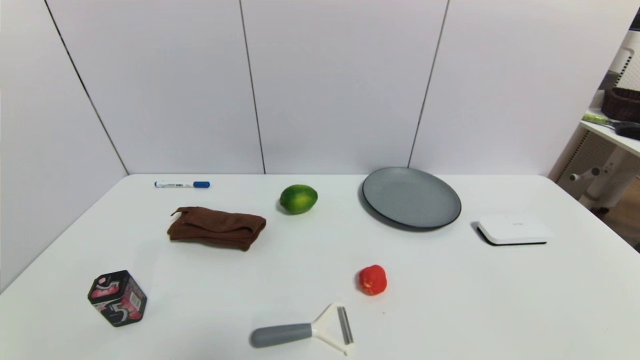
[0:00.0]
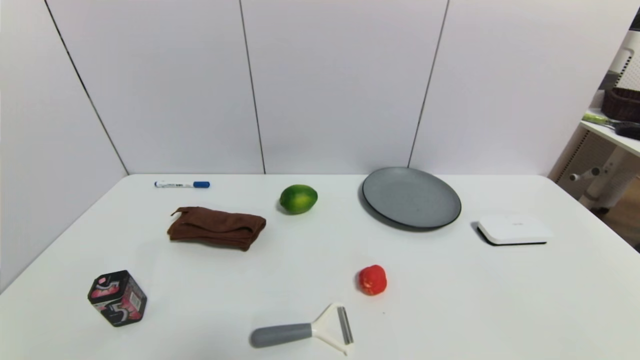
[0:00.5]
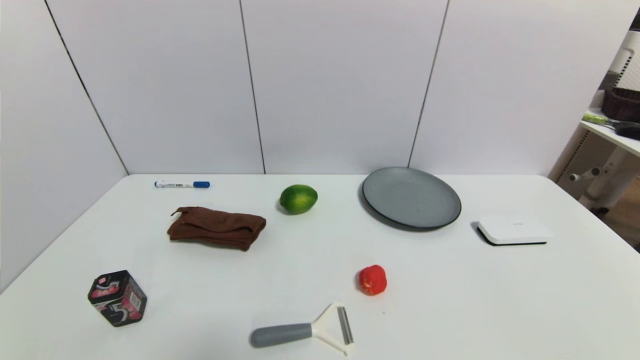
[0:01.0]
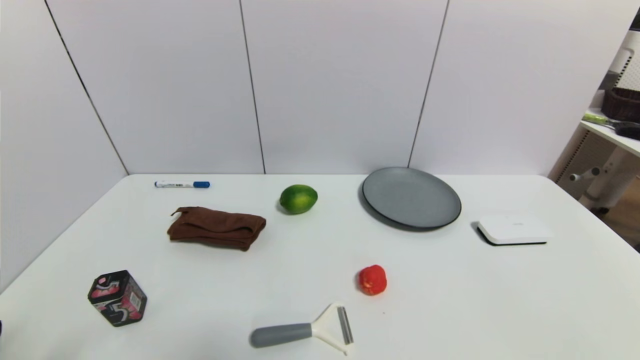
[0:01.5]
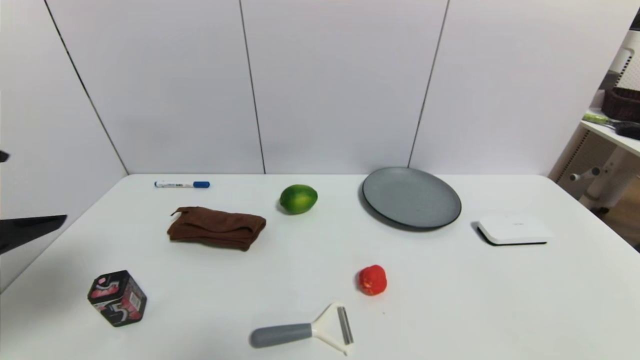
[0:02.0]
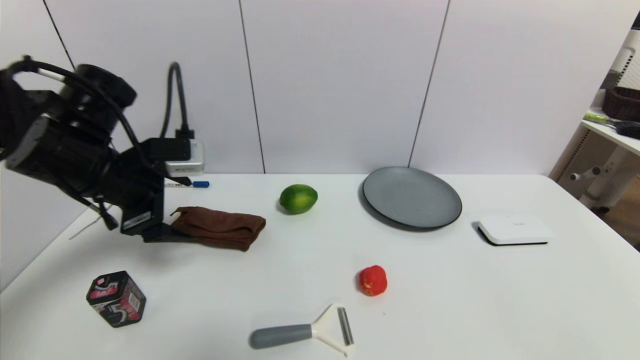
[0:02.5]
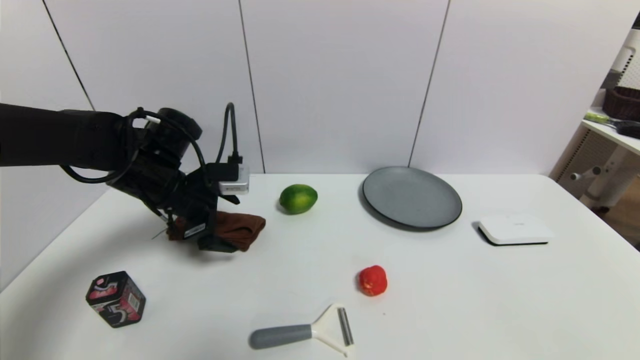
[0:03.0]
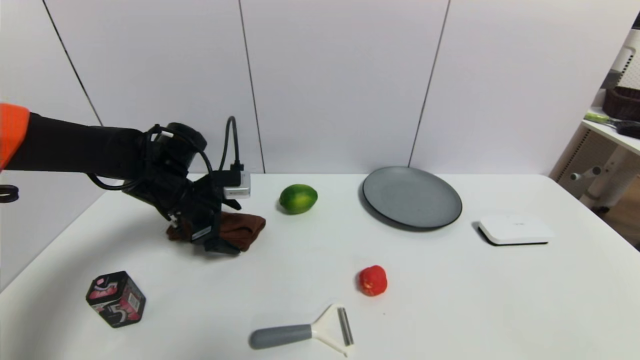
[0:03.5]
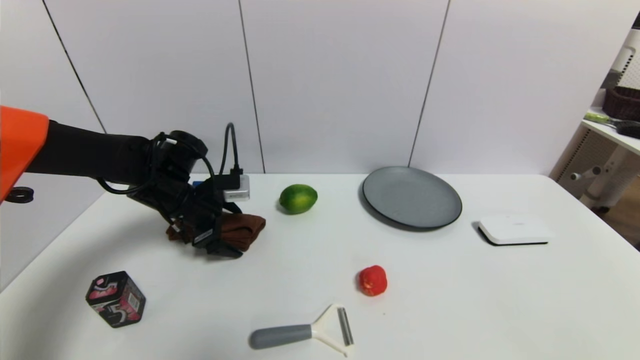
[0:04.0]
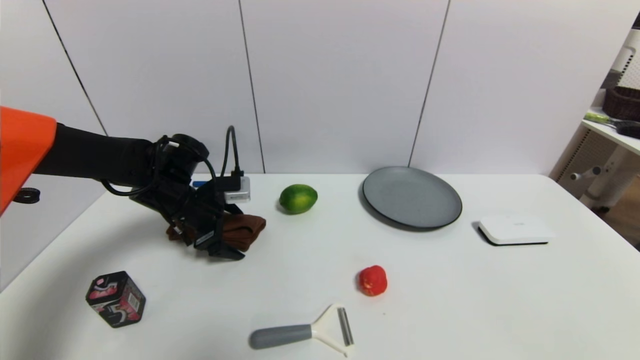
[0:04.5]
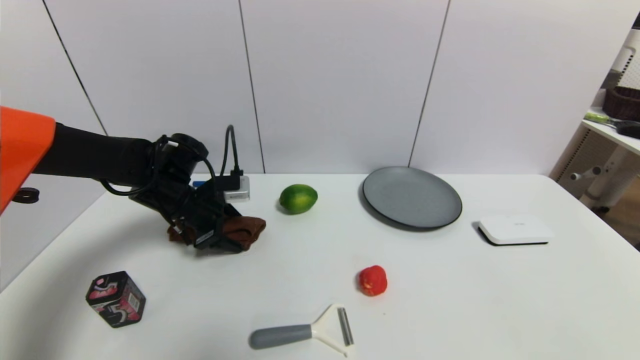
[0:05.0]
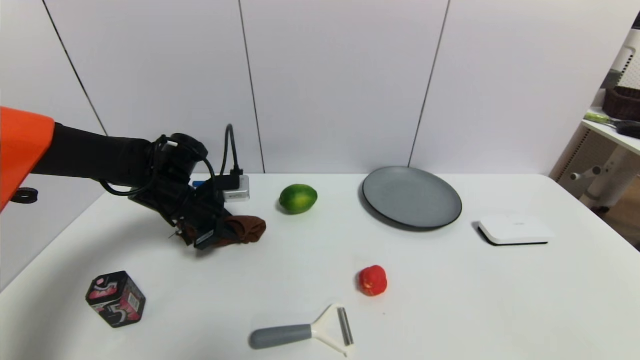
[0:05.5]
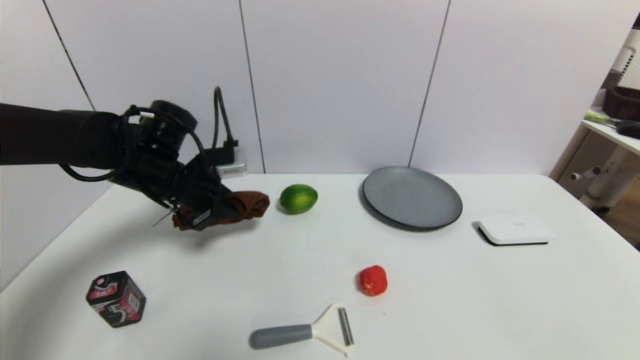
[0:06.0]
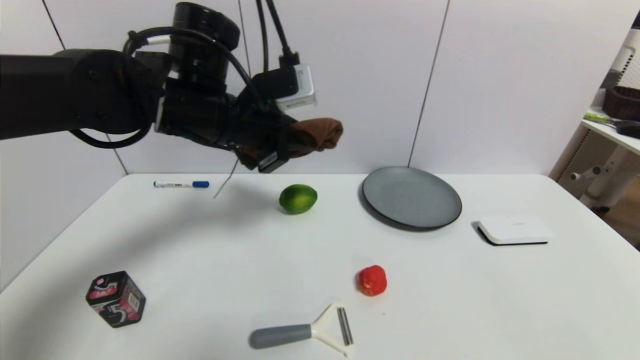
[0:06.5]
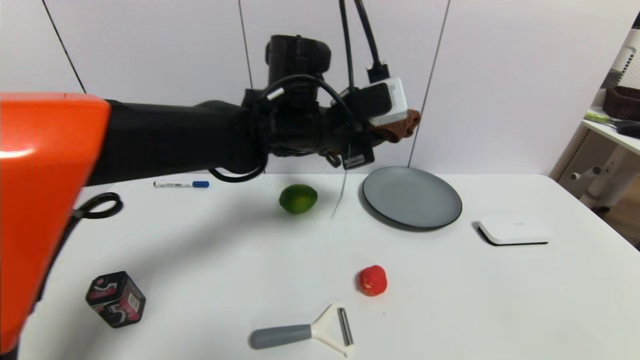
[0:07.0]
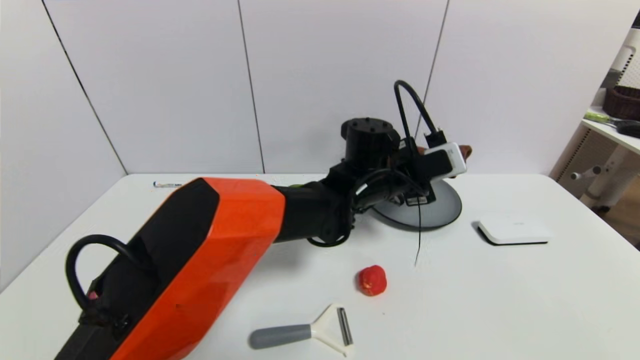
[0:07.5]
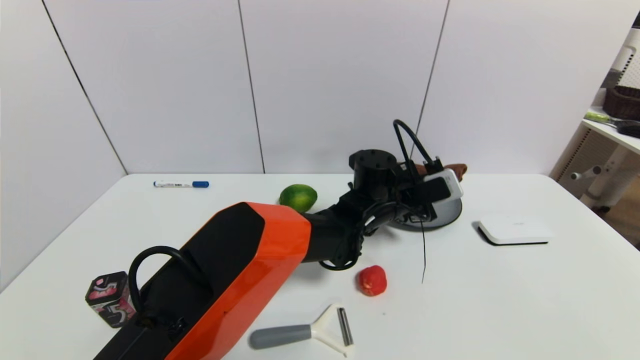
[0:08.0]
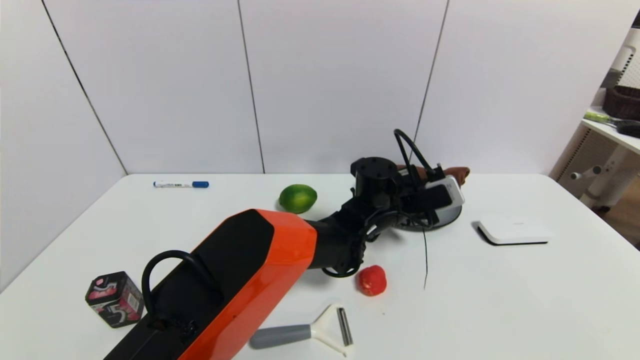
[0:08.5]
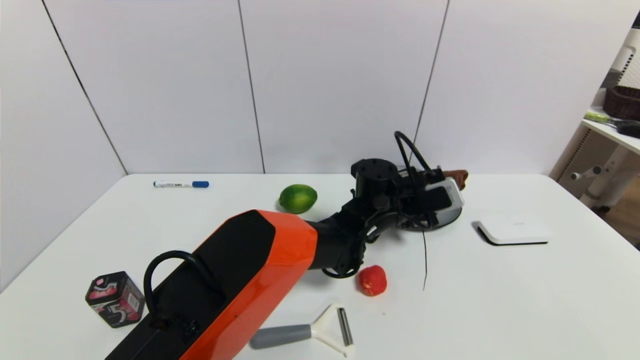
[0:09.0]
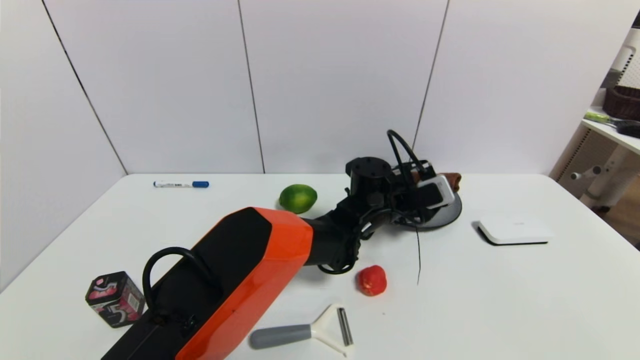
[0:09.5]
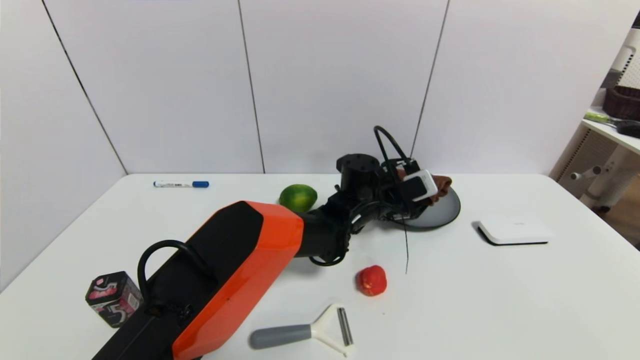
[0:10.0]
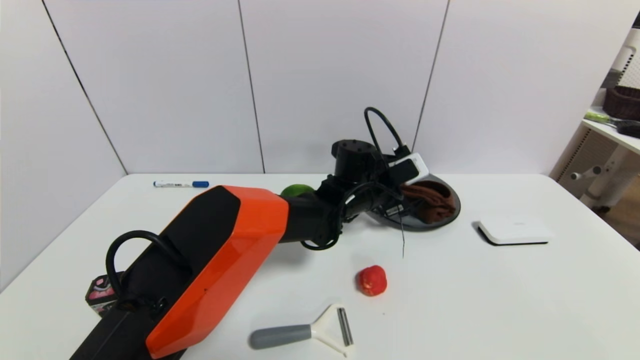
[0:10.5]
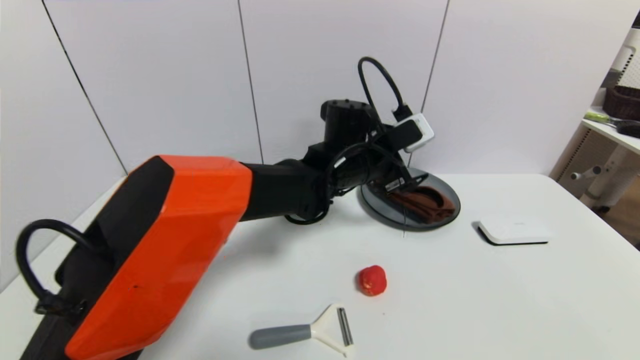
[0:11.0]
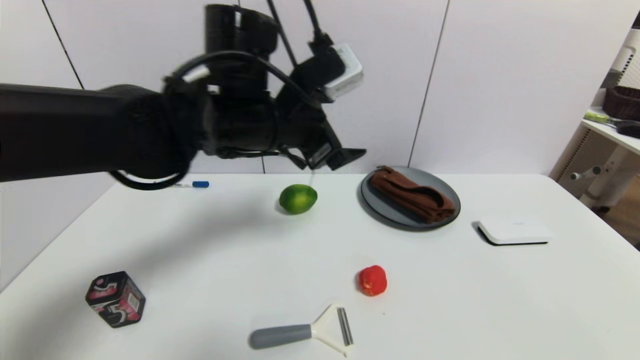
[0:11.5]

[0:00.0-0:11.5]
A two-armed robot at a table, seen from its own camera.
Task of the whole recording: use a gripper to pick the target object and place on the gray plate.
Step, 0:00.0 to 0:05.5: Grasp the brown towel with the left gripper.
Step, 0:06.0 to 0:10.5: Place the brown towel on the gray plate with the left gripper.
0:00.0 to 0:02.0: The left gripper goes approximately 30 cm upward and forward.
0:02.0 to 0:04.0: The left gripper heads forward and downward, covering approximately 30 cm.
0:04.0 to 0:06.0: The left gripper moves upward, about 5 cm, and closes.
0:06.0 to 0:07.5: The left gripper is displaced to the right by some 30 cm.
0:07.5 to 0:09.5: The left gripper heads downward, covering some 5 cm, and opens.
0:09.5 to 0:11.5: The left gripper moves upward, to the left and backward, about 25 cm.

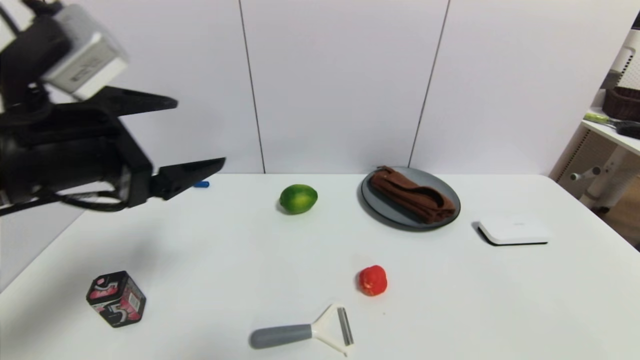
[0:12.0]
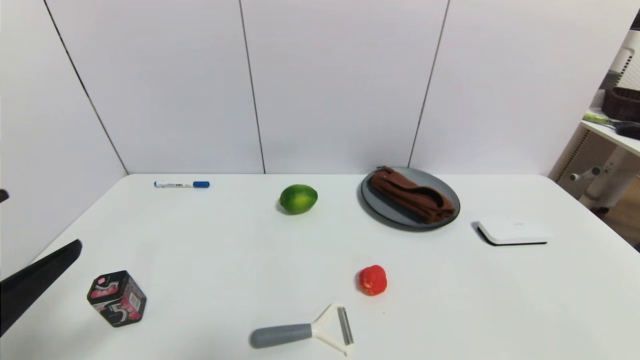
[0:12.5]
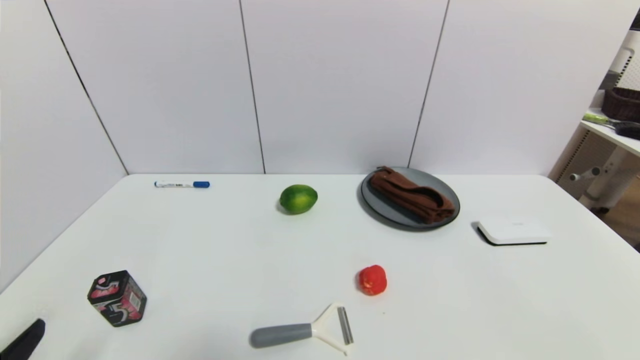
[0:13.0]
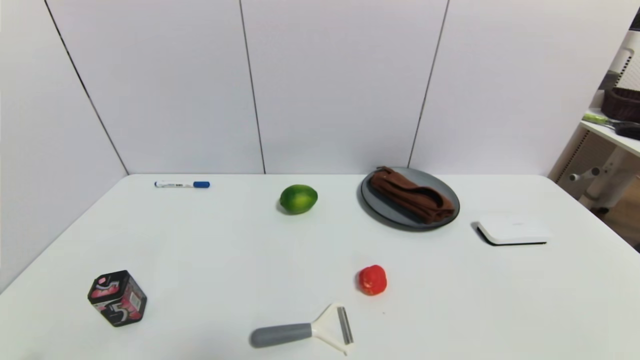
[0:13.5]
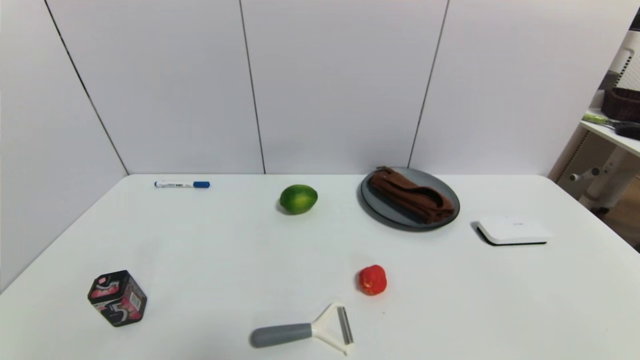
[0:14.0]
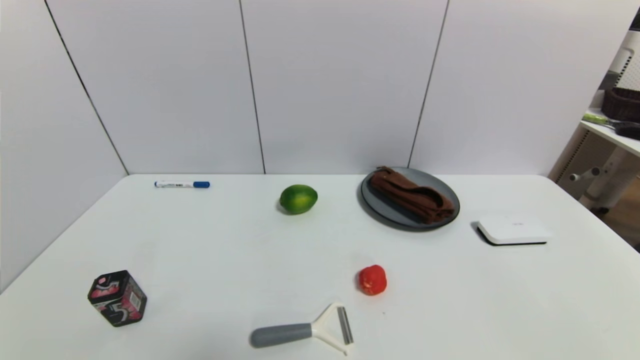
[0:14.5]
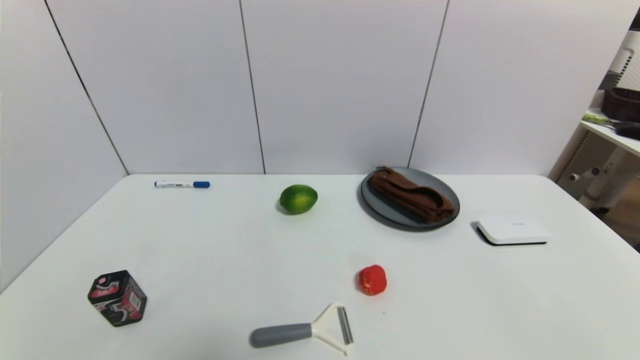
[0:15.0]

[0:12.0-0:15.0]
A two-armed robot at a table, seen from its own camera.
Task of the whole recording: use a gripper to pick the target object and place on the gray plate.
0:12.0 to 0:13.5: The left gripper goes some 30 cm downward and backward.

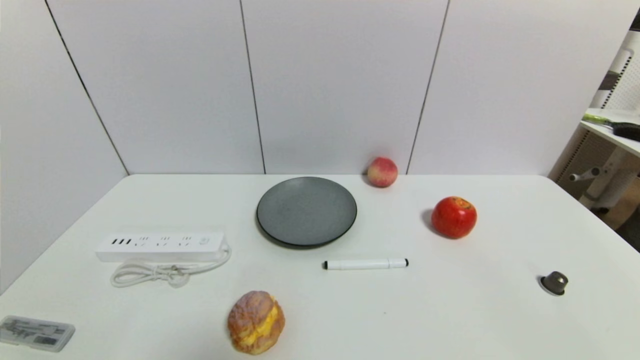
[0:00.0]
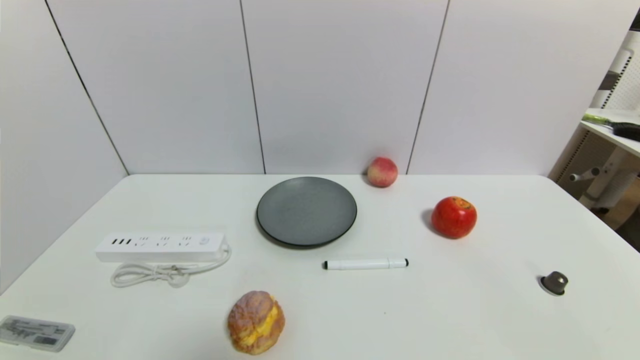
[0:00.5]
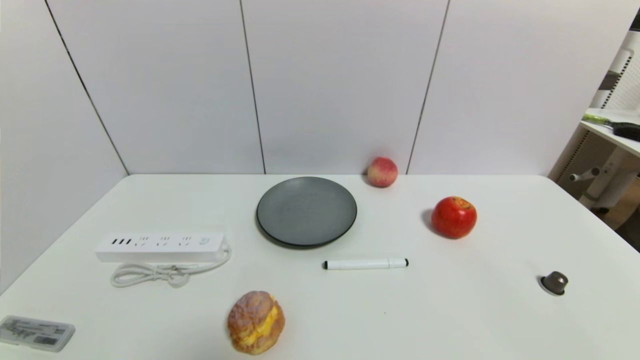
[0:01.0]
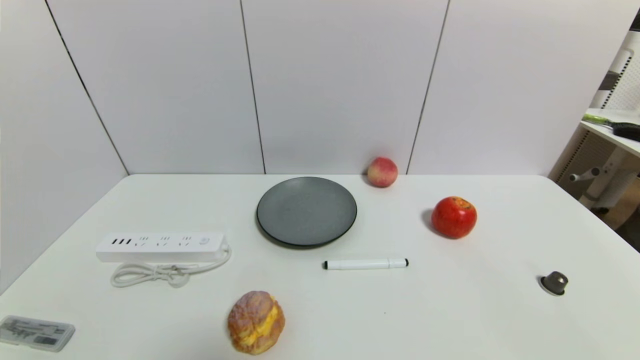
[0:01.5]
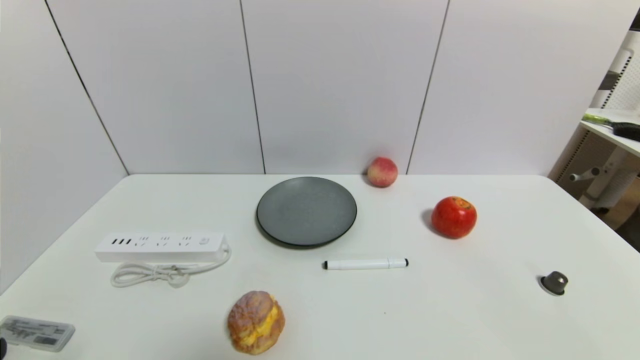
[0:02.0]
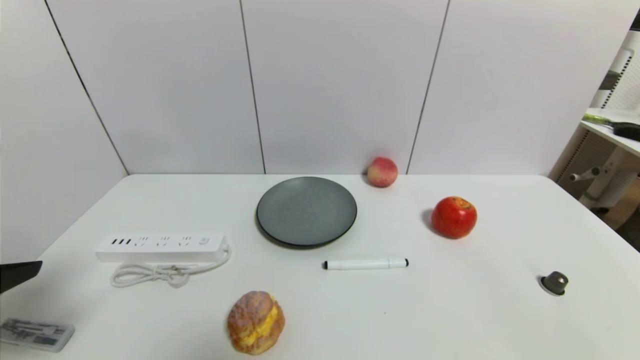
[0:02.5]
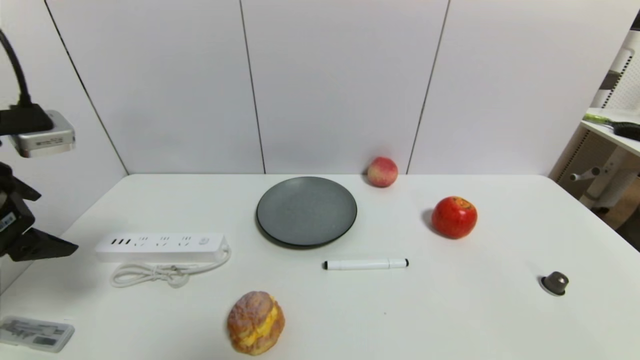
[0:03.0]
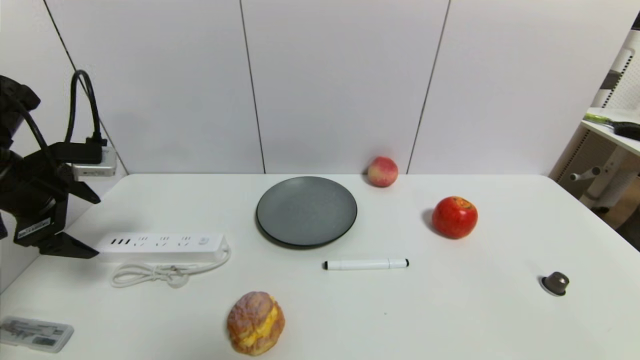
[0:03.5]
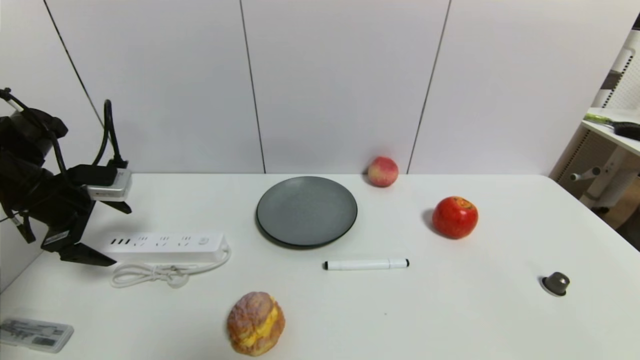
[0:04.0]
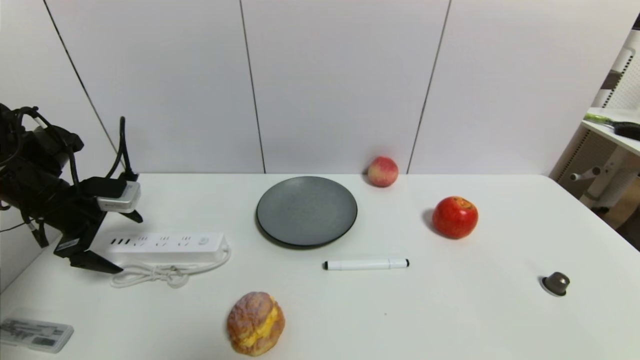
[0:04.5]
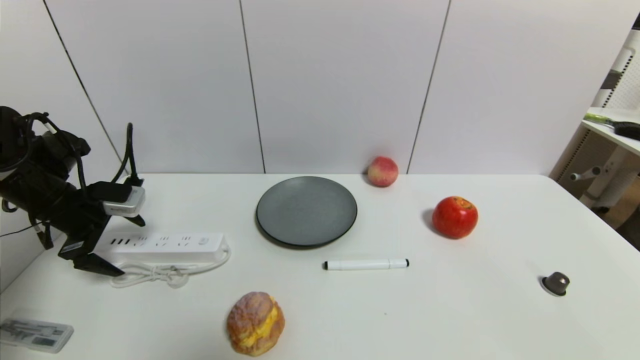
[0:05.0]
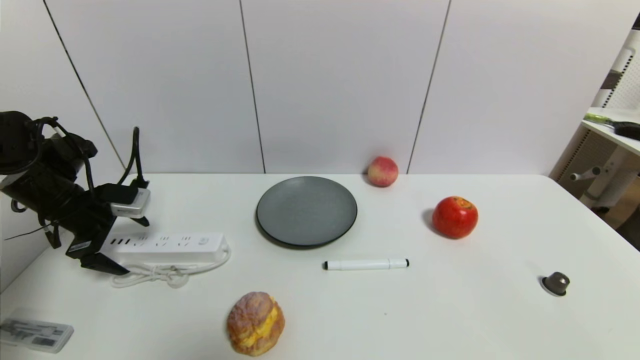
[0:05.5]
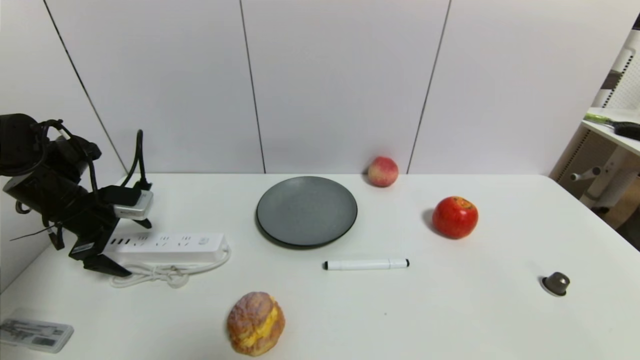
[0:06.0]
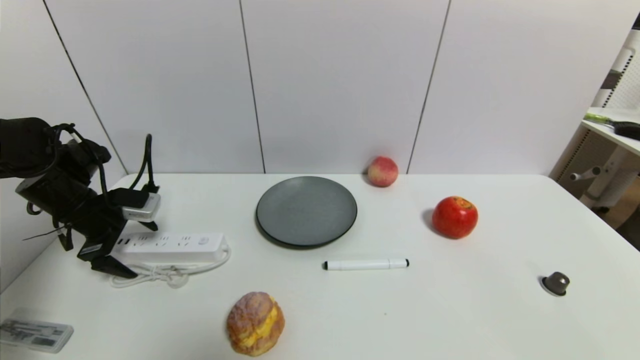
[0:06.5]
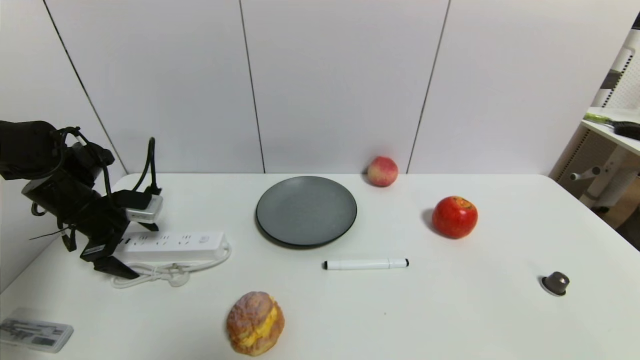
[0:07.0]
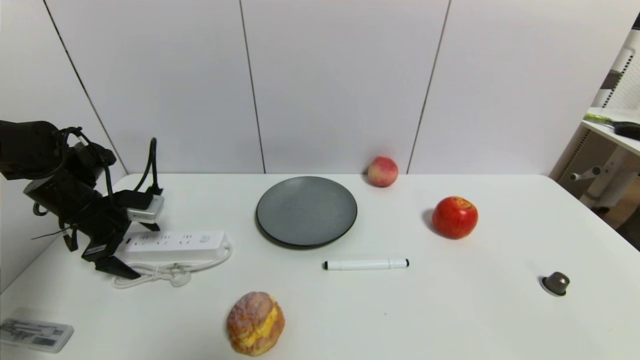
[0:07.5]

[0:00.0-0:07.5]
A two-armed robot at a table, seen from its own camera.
Task of the whole recording: use a gripper to pick the target object and place on the gray plate.
0:02.0 to 0:04.0: The left gripper shifts about 30 cm forward.
0:04.0 to 0:05.5: The left gripper moves roughly 5 cm.
0:05.5 to 0:07.5: The grippers stay close to where they were, moving slightly.
